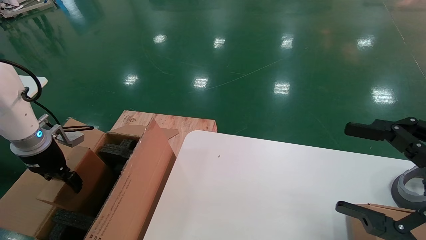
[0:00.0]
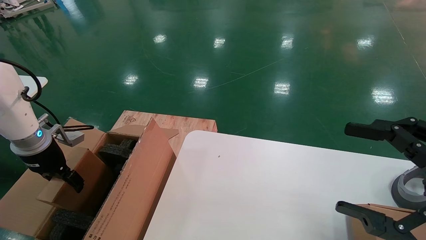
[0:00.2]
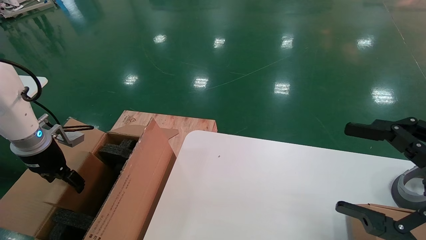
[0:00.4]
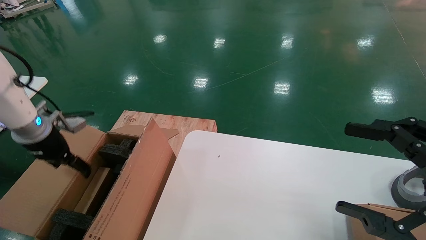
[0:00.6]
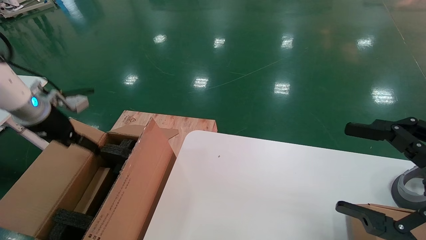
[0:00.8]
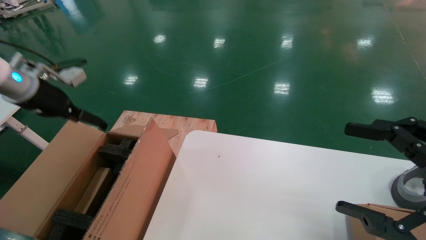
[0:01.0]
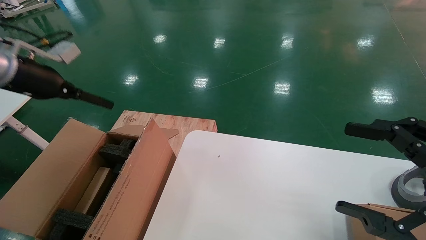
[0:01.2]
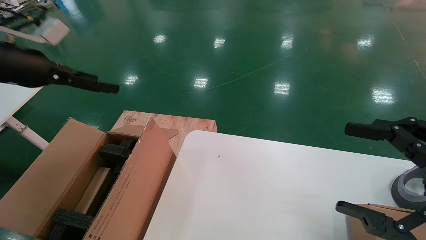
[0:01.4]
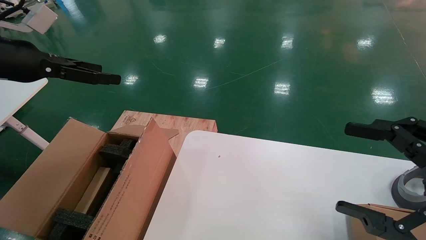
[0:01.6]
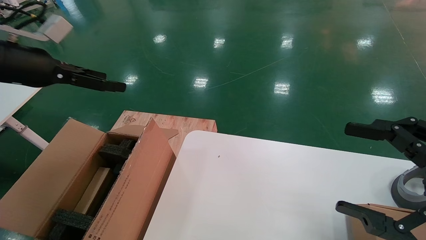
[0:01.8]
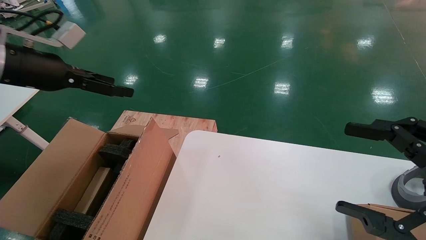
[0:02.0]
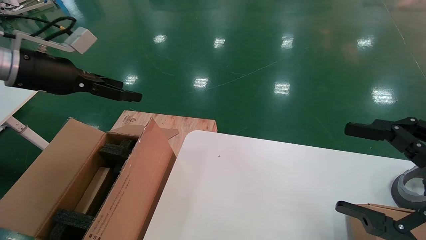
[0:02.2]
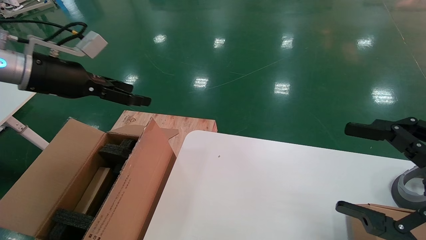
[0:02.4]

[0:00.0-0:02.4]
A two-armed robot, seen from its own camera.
Task of the whole recording: put the box on the table into the big box.
0:00.0 to 0:01.2: The left gripper goes approximately 15 cm upward, and opens.
0:01.2 to 0:02.4: The left gripper heads to the right, covering roughly 5 cm.
